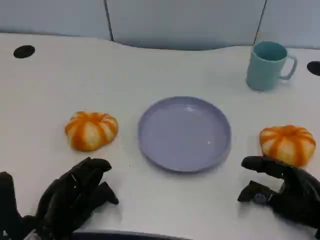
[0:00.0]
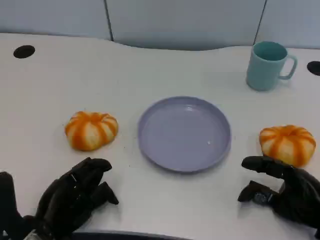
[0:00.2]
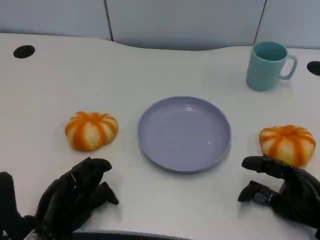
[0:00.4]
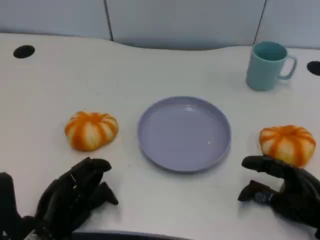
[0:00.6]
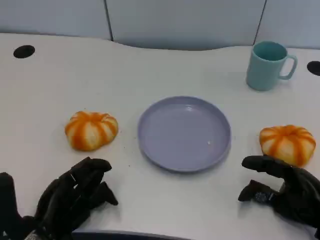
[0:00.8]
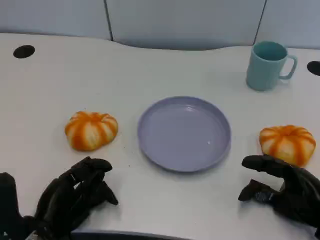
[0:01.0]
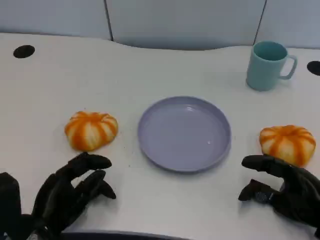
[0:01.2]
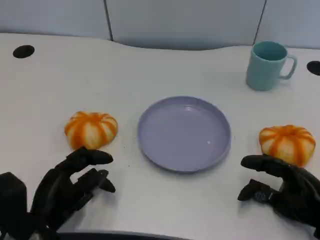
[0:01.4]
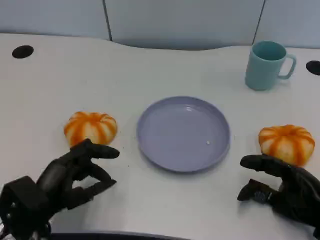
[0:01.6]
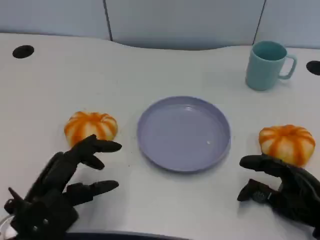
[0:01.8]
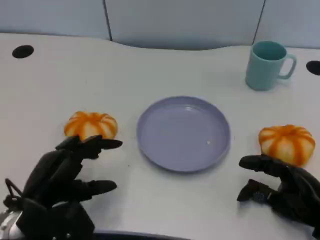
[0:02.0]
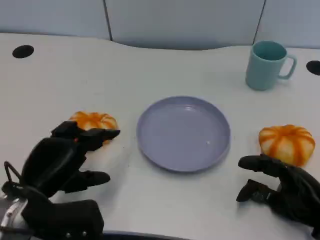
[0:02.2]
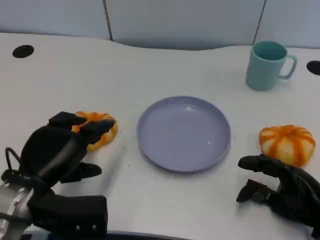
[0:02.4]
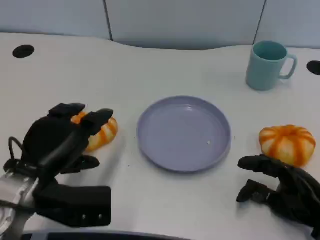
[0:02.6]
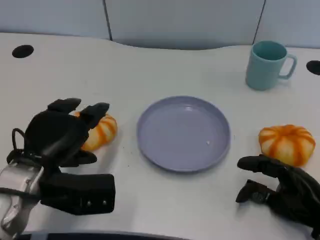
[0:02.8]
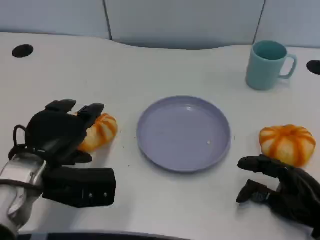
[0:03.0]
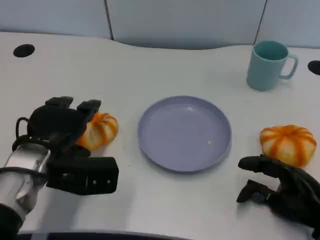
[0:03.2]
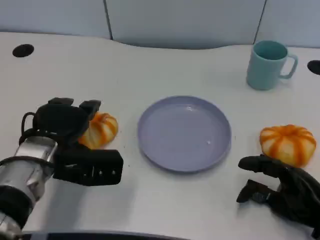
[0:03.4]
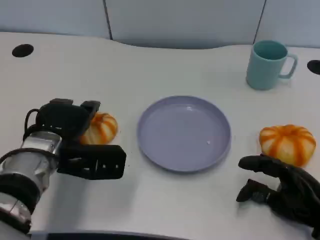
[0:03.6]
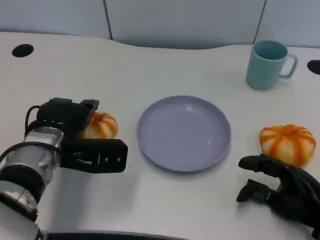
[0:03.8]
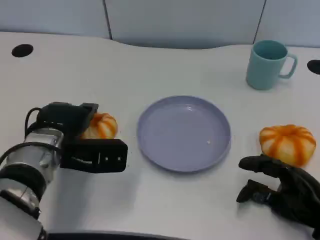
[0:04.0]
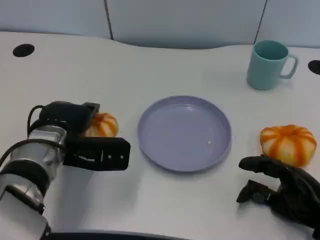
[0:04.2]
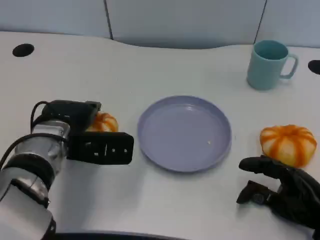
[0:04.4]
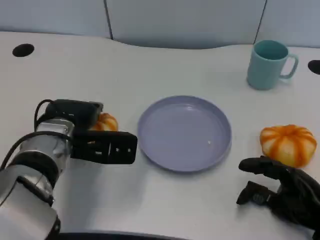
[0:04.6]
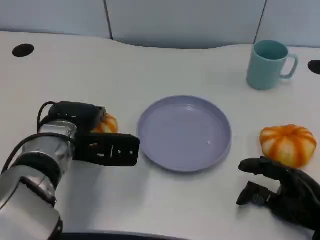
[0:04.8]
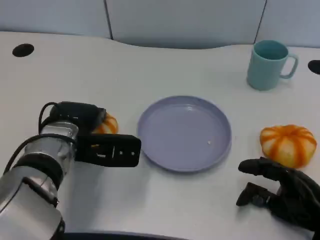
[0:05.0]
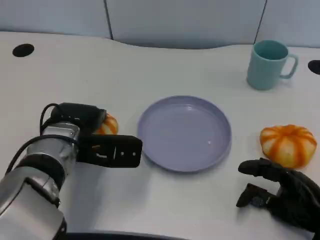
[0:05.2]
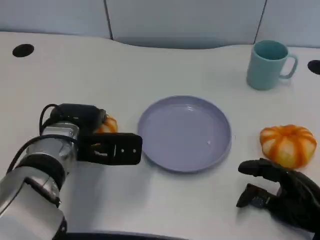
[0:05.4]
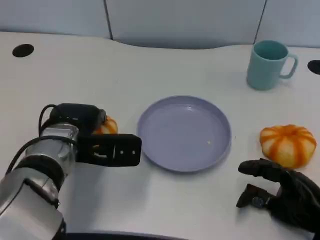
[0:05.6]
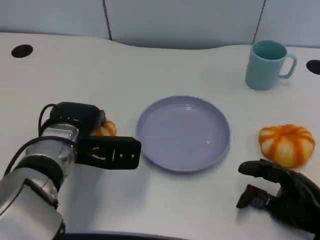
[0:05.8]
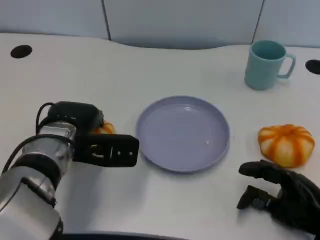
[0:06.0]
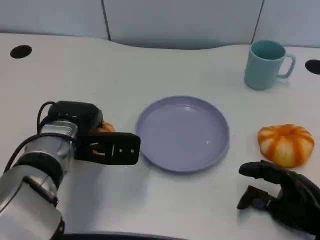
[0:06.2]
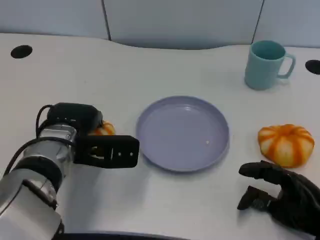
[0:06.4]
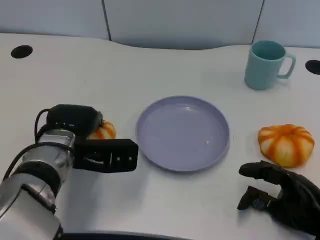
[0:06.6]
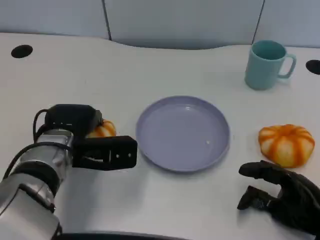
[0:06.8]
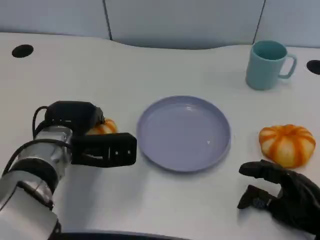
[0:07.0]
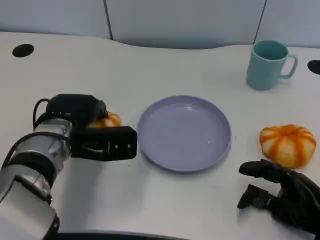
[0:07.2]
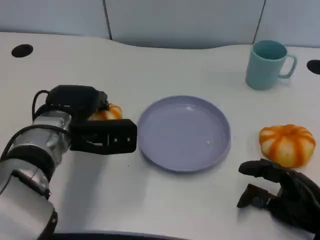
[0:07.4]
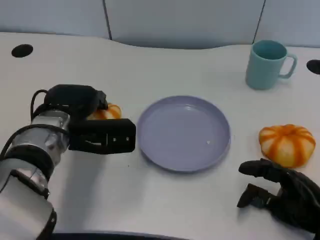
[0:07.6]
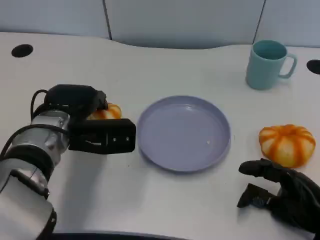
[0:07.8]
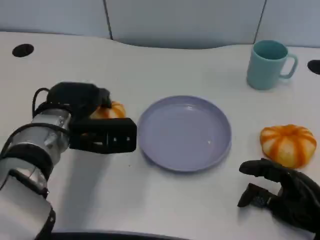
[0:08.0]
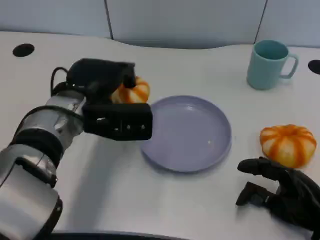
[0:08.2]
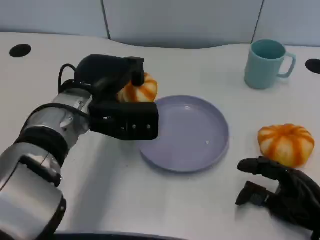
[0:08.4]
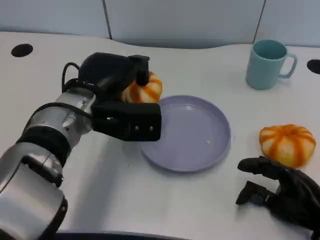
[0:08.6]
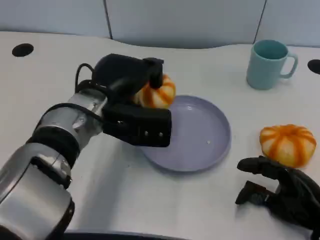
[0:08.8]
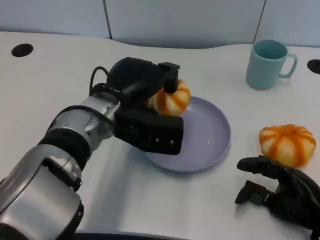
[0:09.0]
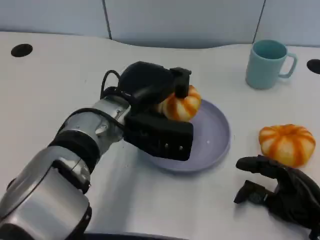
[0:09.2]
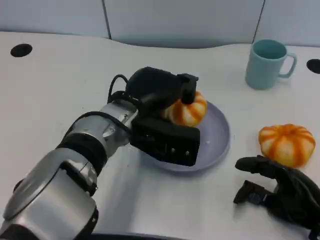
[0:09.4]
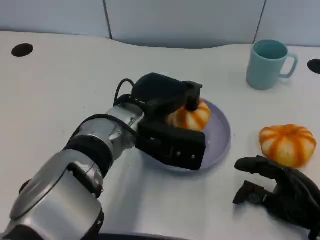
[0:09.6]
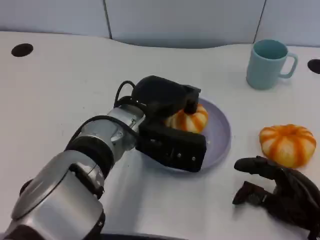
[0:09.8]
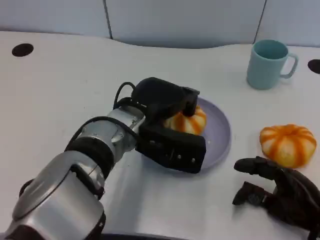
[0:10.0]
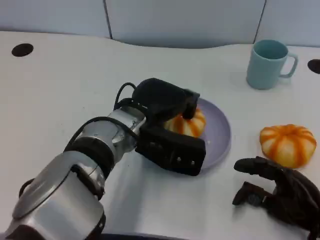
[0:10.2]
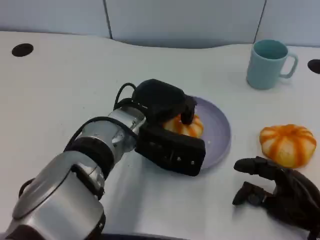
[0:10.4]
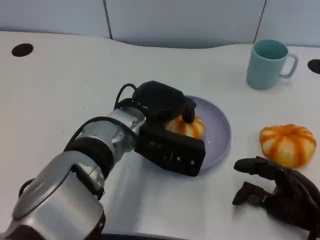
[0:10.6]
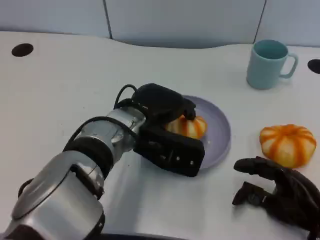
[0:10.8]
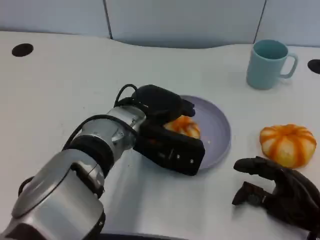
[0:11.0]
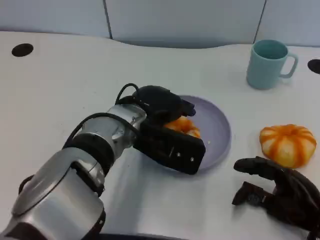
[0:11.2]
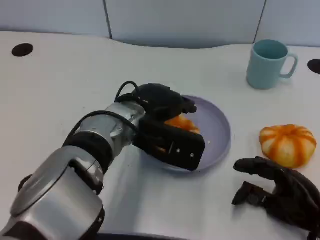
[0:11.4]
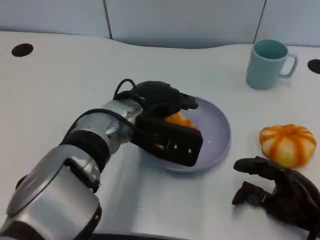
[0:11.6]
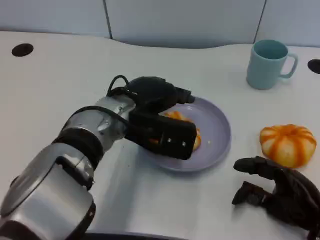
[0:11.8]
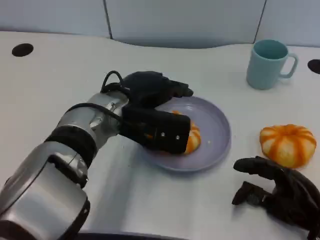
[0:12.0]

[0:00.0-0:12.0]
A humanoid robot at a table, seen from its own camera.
Task of the whole recording: Grasp the bread from the table and place it into the plate.
0:01.6 to 0:03.0: The left hand goes about 5 cm forward.
0:03.0 to 0:04.4: The left hand moves forward, roughly 5 cm.
0:04.4 to 0:07.6: The hands stay close to where they were, moving slightly.
0:07.6 to 0:09.0: The left hand shifts roughly 10 cm to the right.

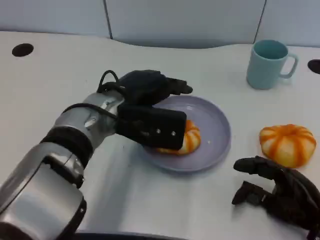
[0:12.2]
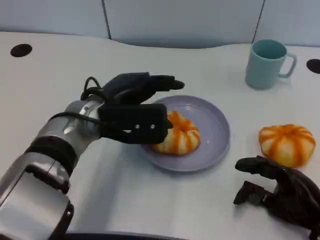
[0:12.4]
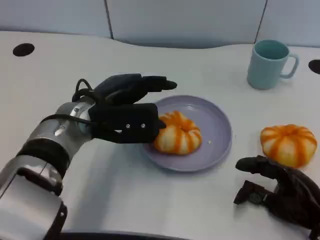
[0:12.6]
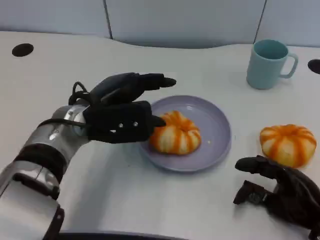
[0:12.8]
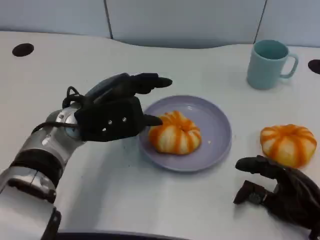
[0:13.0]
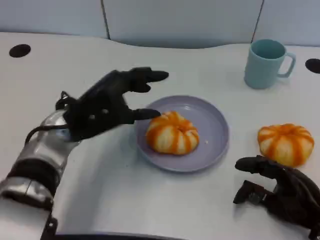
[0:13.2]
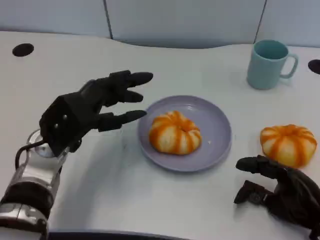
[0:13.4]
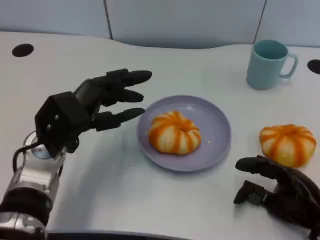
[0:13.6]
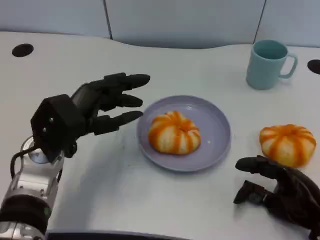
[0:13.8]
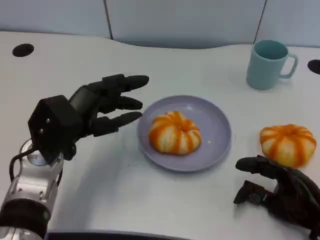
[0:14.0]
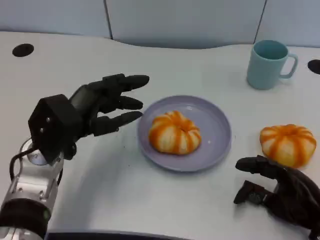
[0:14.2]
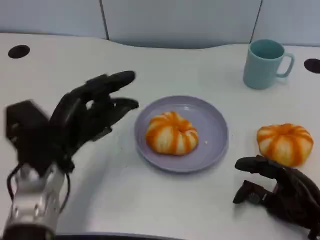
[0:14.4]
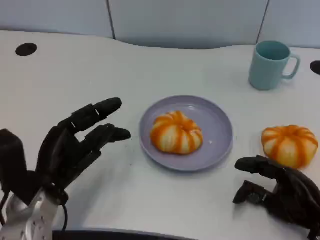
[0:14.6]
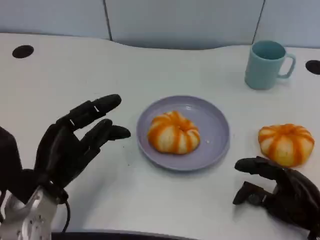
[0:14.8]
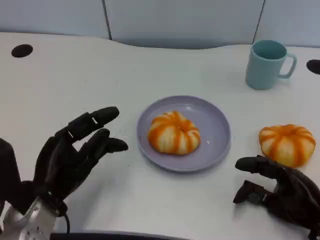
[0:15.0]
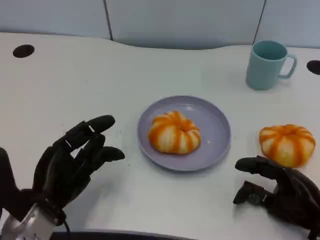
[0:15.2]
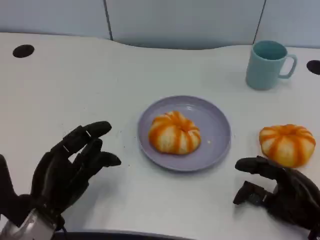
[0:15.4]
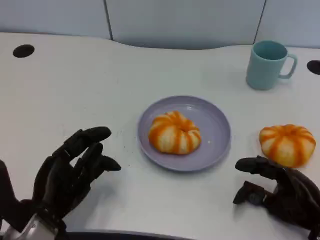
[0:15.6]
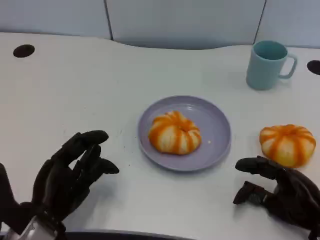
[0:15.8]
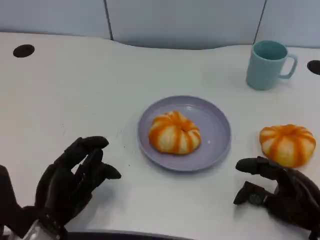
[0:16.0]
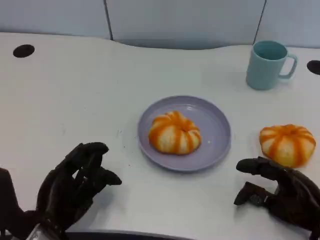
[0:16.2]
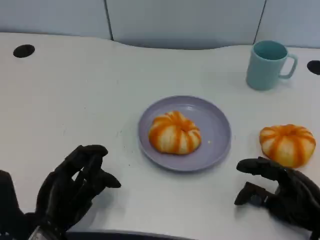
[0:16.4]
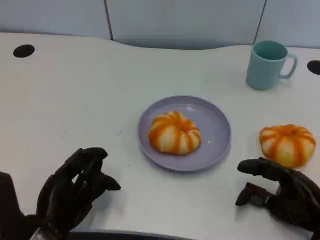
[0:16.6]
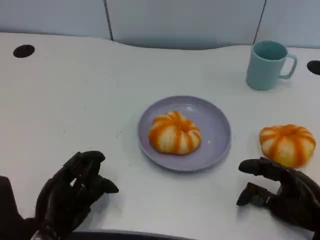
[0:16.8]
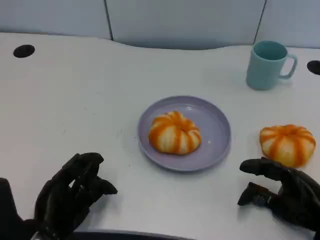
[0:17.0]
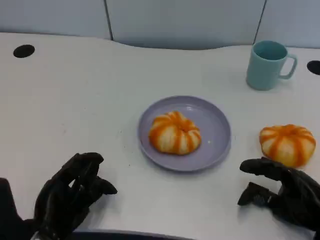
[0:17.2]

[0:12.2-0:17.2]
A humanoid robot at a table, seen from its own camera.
Task of the whole recording: Grasp the bread from the table and place it into the plate.
0:12.2 to 0:13.8: The left hand goes approximately 10 cm to the left.
0:13.8 to 0:15.6: The left hand heads backward and downward, covering about 10 cm.
0:15.6 to 0:17.2: The hands move only a little.

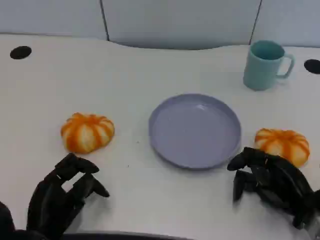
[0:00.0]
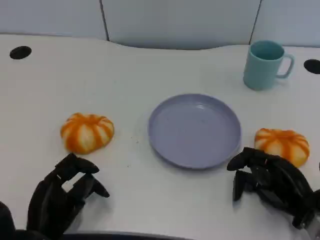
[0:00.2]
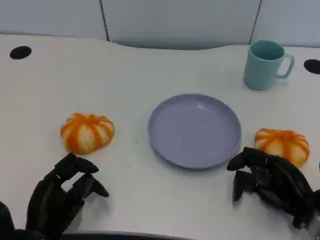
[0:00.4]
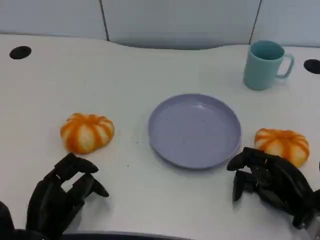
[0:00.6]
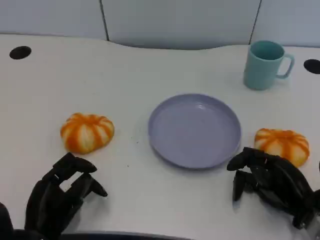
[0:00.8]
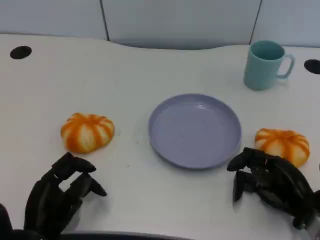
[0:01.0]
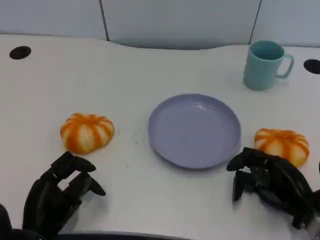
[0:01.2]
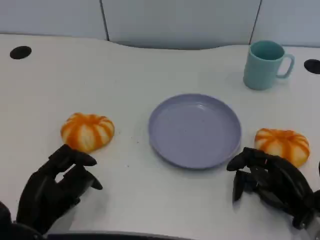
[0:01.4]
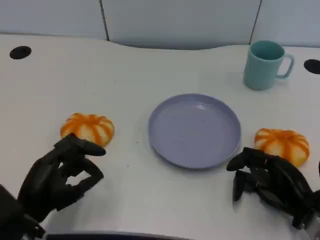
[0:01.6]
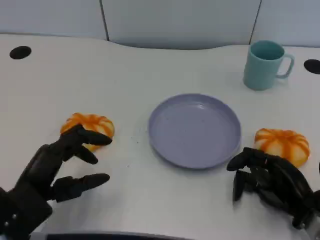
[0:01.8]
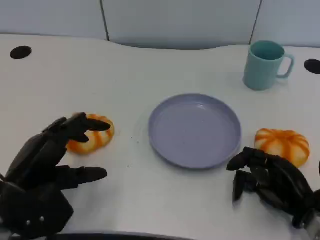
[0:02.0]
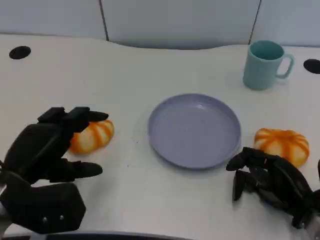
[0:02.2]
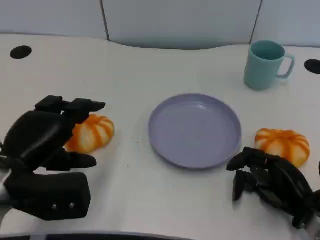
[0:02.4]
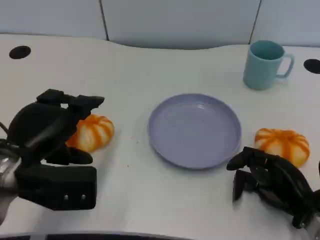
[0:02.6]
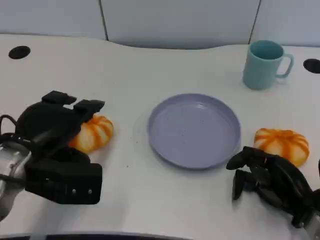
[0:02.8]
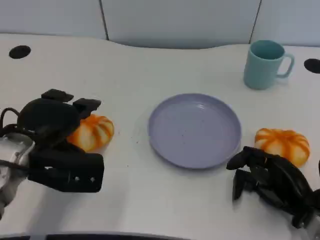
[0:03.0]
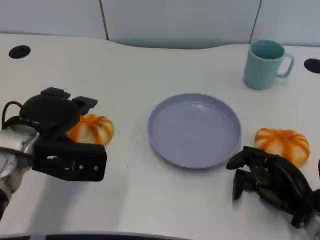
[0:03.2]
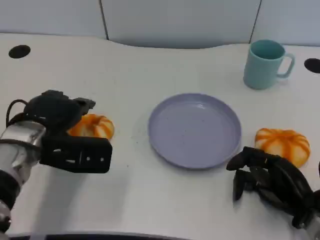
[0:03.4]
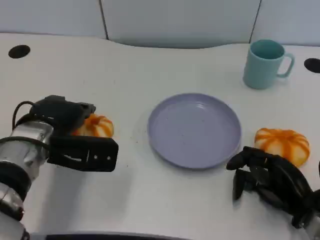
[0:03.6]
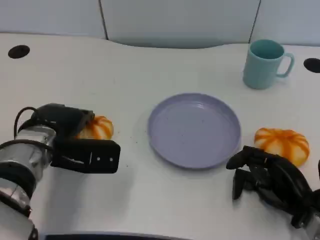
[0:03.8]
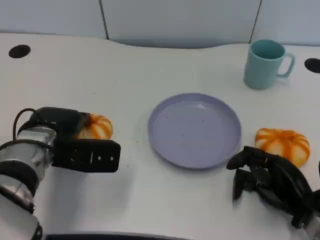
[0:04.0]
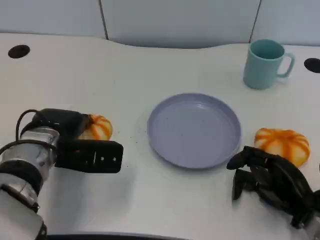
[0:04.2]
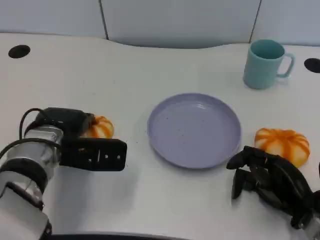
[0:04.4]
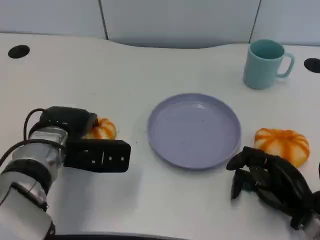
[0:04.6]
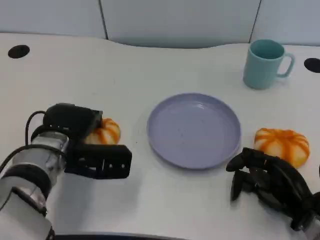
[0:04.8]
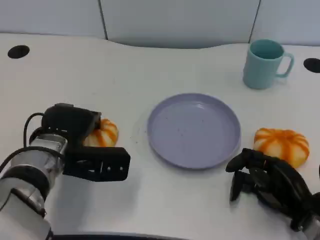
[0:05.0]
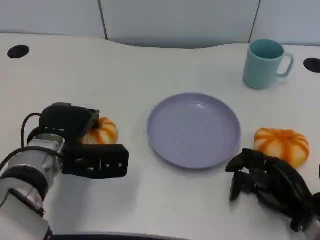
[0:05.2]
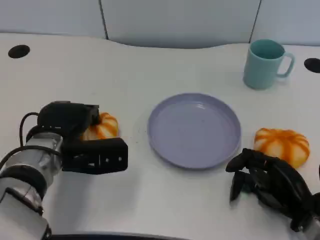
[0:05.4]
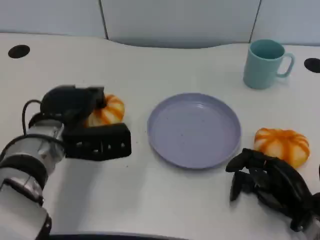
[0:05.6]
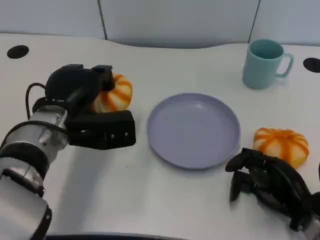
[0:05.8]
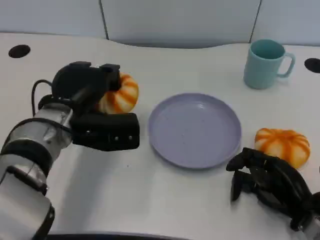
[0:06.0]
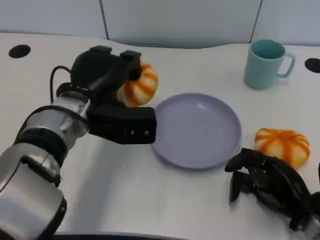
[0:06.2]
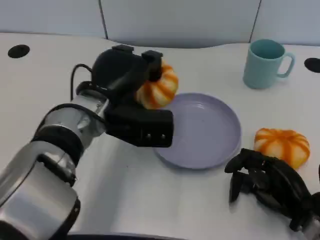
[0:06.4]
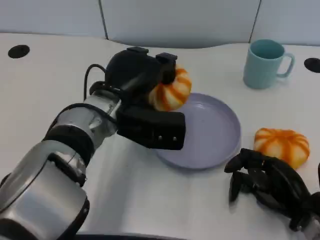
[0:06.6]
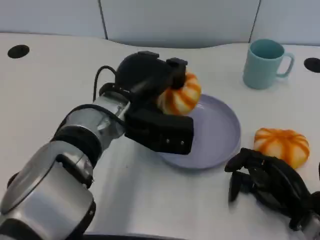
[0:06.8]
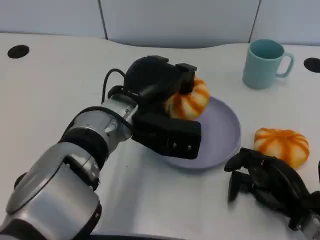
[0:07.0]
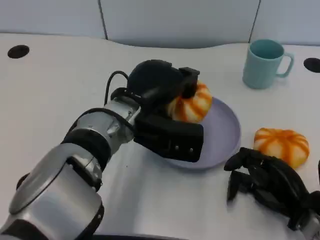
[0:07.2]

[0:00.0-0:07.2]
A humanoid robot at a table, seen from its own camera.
Task of the whole recording: Grasp the bread from the table and place it into the plate.
0:00.0 to 0:01.4: The hands make only small movements.
0:01.4 to 0:02.8: The left hand shifts roughly 10 cm upward and forward.
0:02.8 to 0:04.4: The left hand changes place by approximately 5 cm.
0:05.8 to 0:07.2: The left hand moves to the right, some 10 cm.
